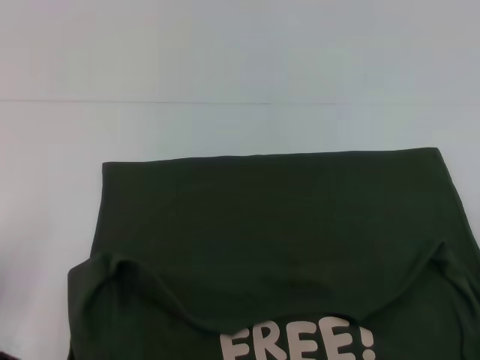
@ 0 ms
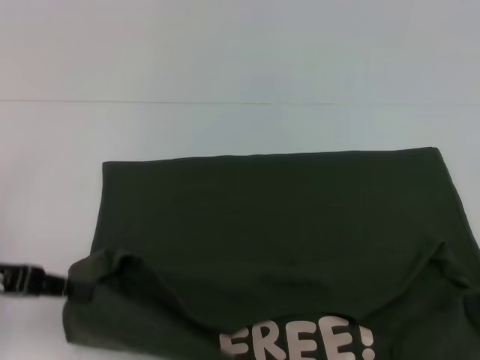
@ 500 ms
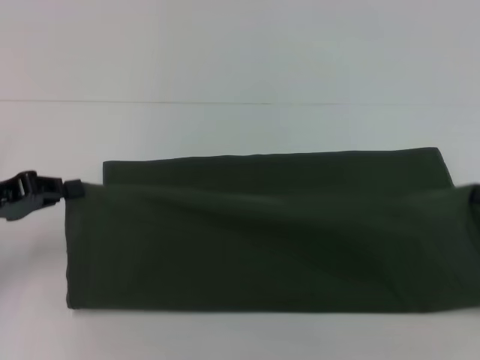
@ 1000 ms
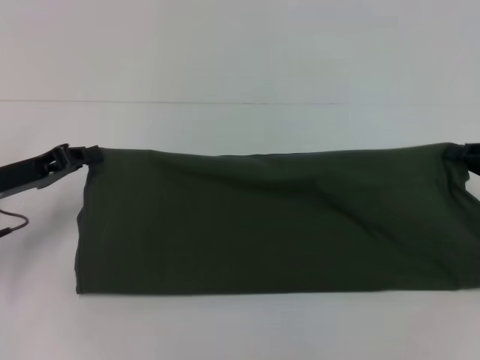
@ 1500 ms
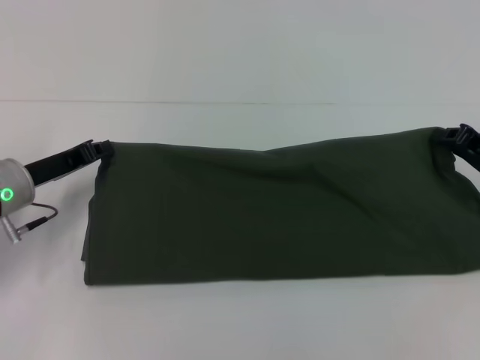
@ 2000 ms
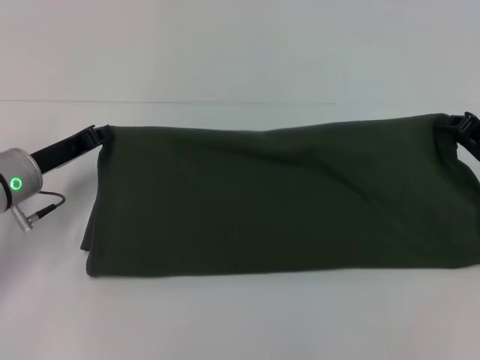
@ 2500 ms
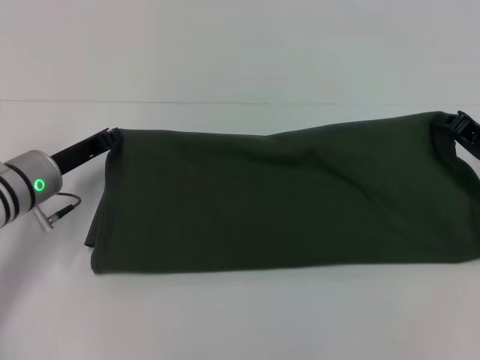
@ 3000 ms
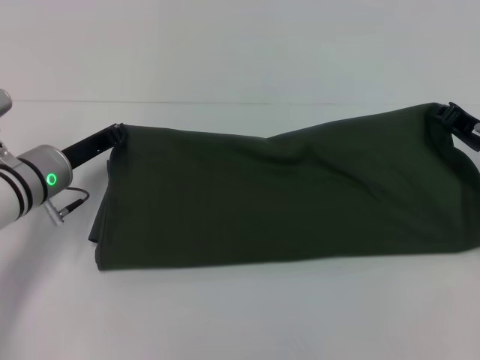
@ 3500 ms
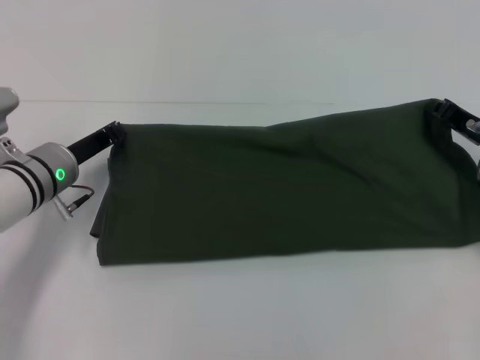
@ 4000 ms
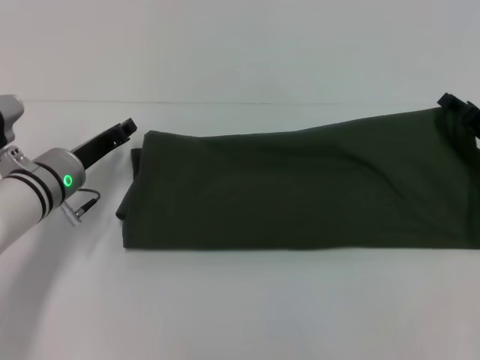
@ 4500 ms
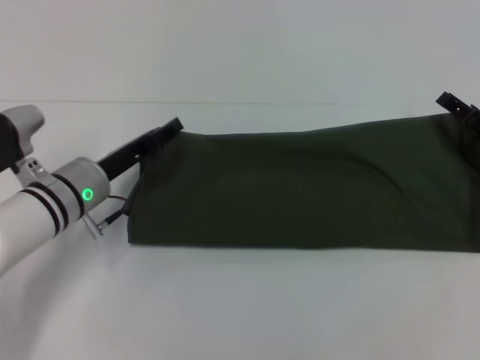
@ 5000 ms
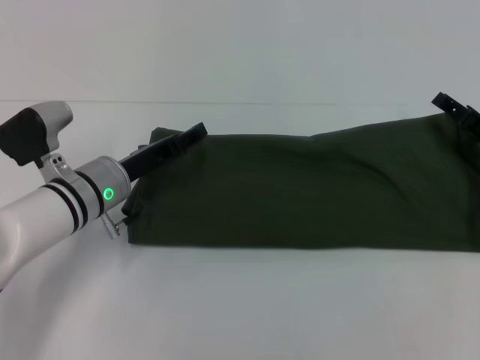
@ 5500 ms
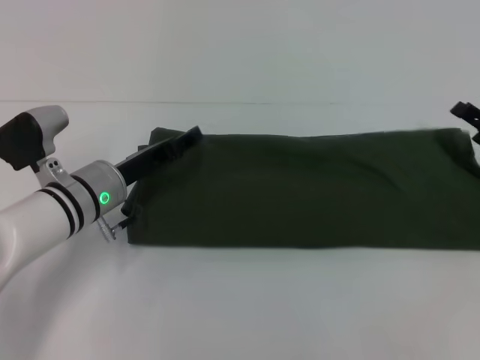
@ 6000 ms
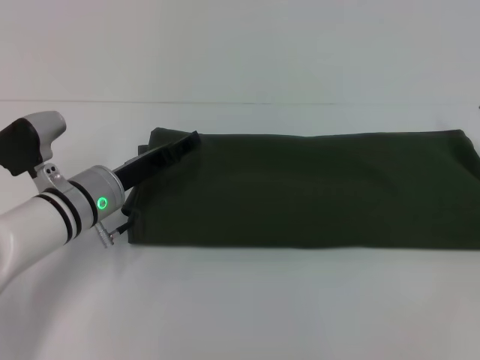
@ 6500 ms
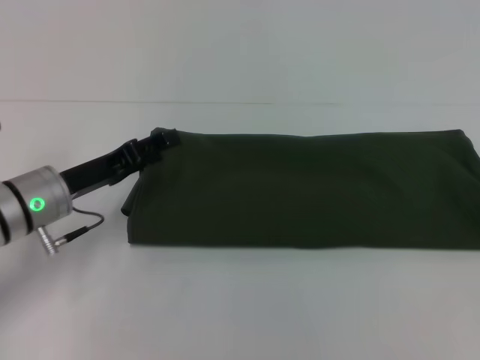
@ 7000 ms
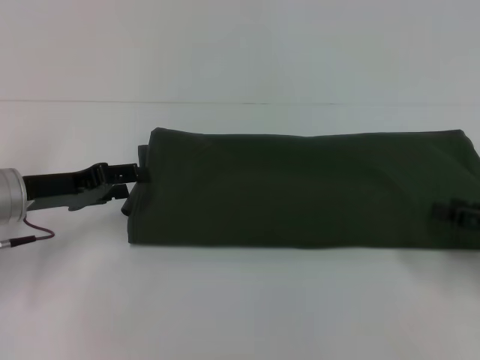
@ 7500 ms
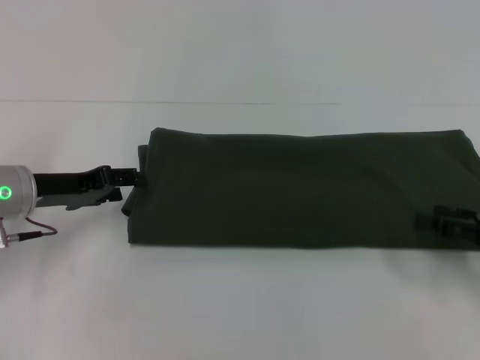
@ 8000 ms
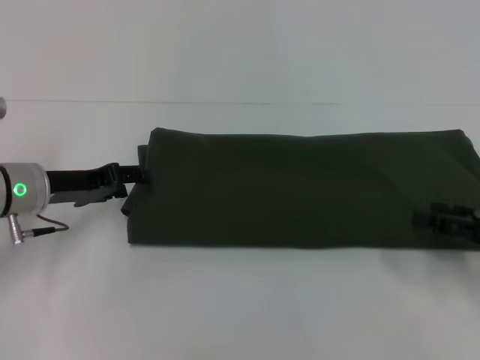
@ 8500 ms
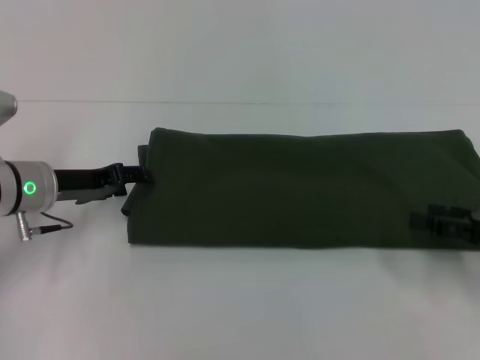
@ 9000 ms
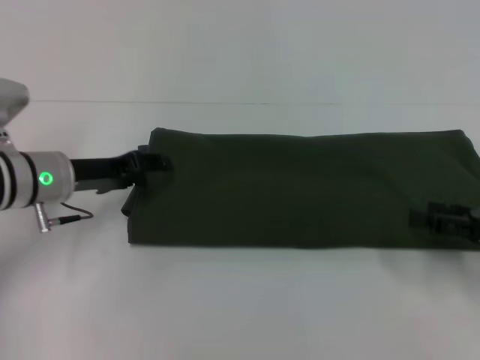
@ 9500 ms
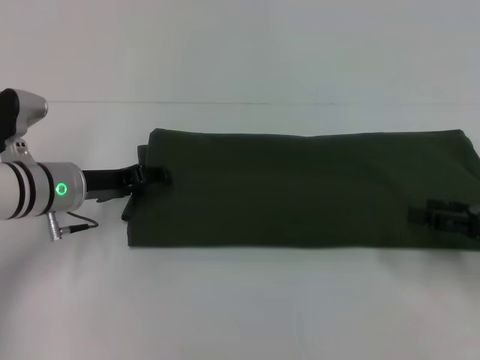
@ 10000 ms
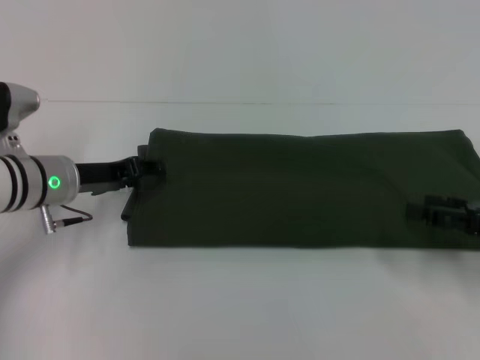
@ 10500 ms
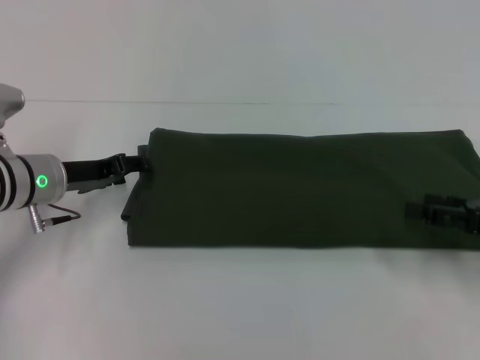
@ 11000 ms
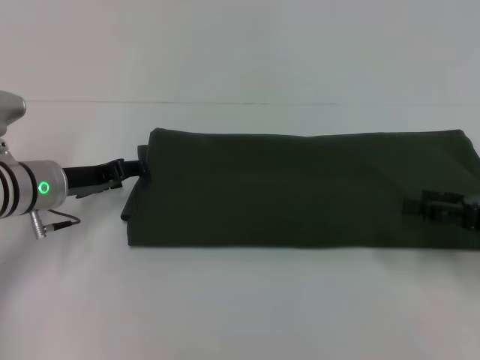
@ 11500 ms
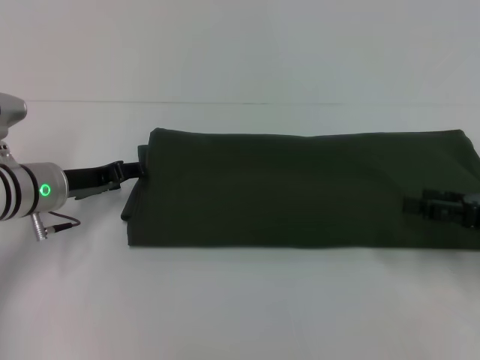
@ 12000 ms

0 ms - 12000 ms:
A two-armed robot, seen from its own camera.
Step, 500 ms - 6000 ms: Fold the clothes with your right hand.
0 ms - 2000 ms: The two grippers go some 10 cm forward.
2000 ms - 4000 ms: The left gripper moves some 5 cm.
4000 ms - 6000 ms: The left gripper ends up about 5 cm from where it was, and opens its fingers, while the right gripper ends up approximately 5 cm from where it was, and opens.
6000 ms - 8000 ms: The left gripper shifts approximately 10 cm to the left; the right gripper travels backward by approximately 10 cm.
8000 ms - 10000 ms: The left gripper shifts by approximately 5 cm.
10000 ms - 12000 ms: The grippers move only a little.

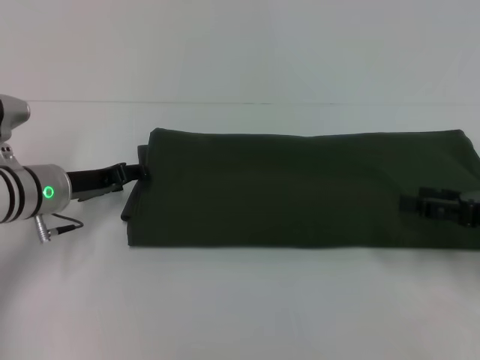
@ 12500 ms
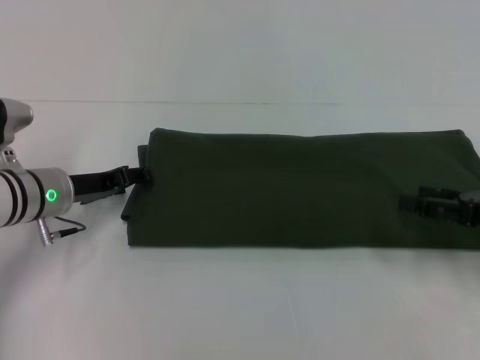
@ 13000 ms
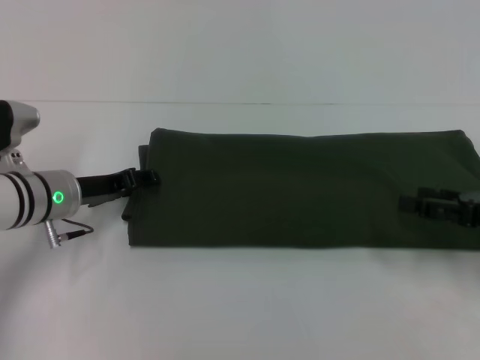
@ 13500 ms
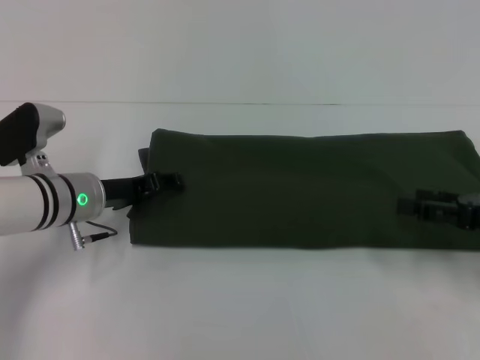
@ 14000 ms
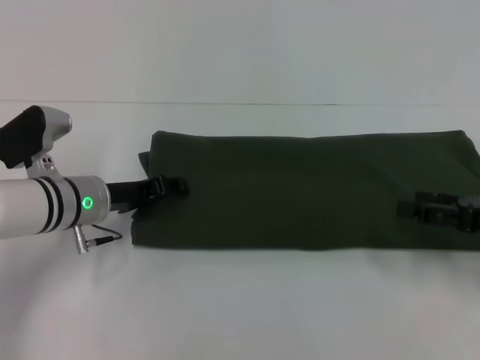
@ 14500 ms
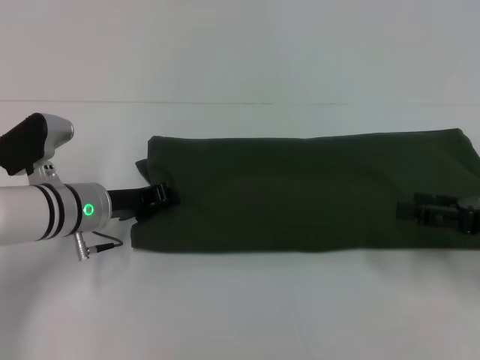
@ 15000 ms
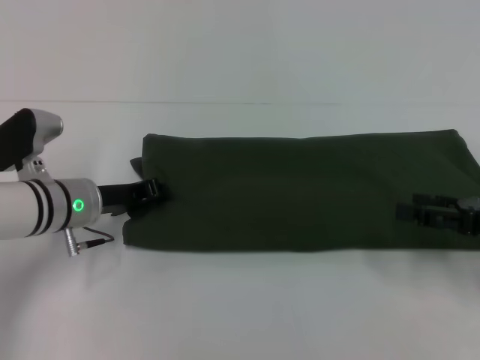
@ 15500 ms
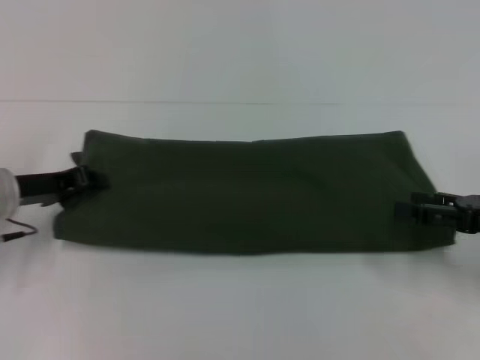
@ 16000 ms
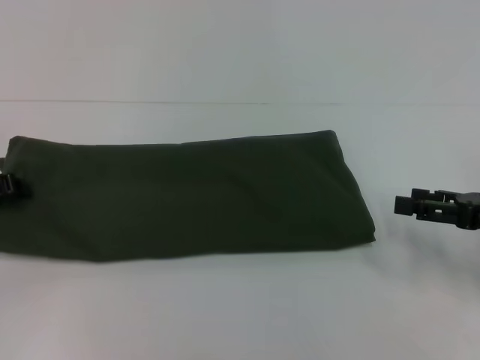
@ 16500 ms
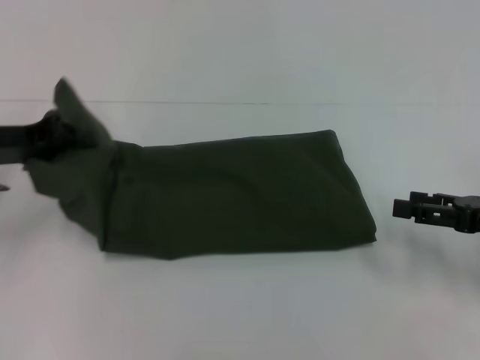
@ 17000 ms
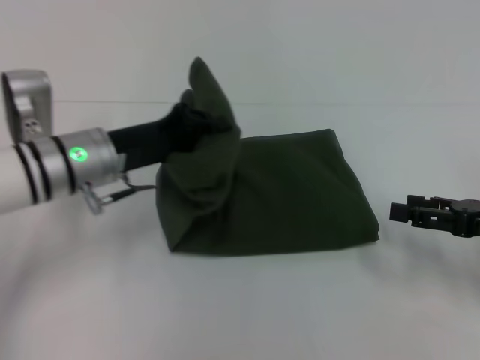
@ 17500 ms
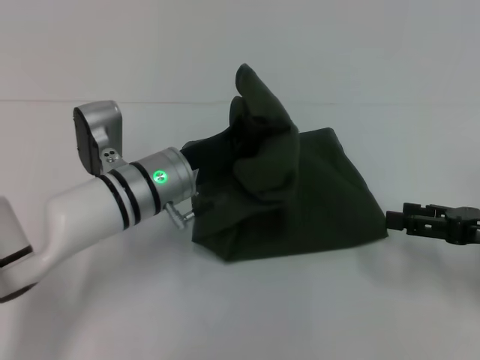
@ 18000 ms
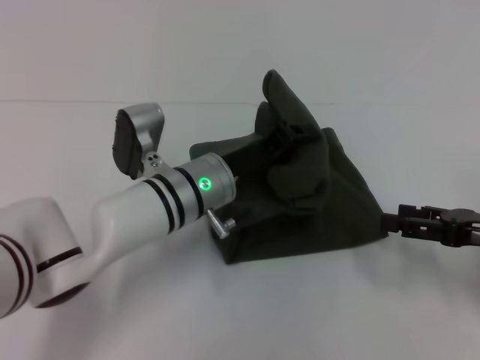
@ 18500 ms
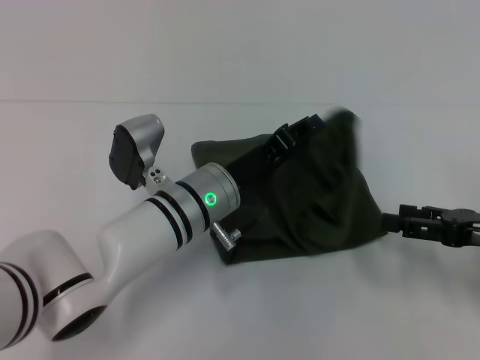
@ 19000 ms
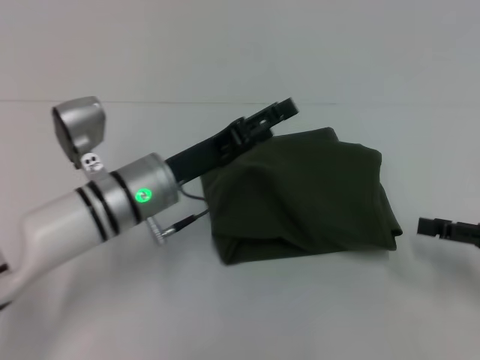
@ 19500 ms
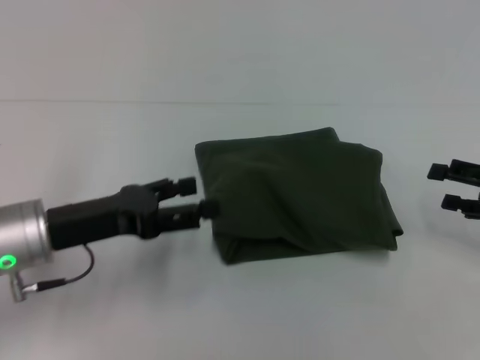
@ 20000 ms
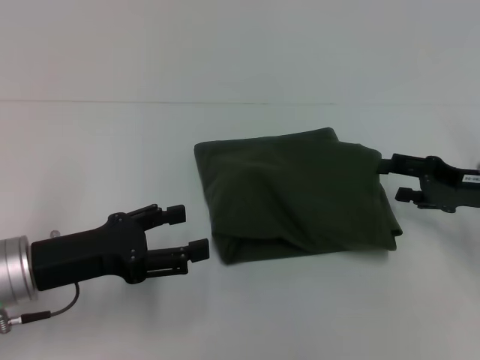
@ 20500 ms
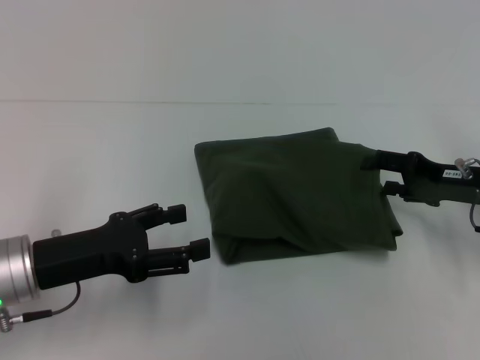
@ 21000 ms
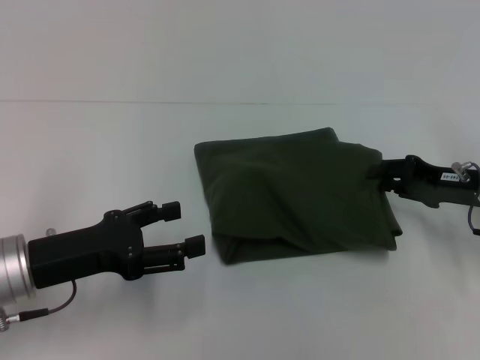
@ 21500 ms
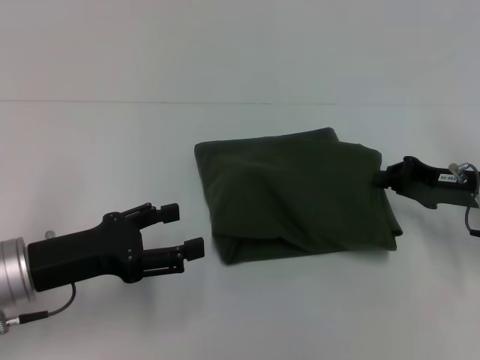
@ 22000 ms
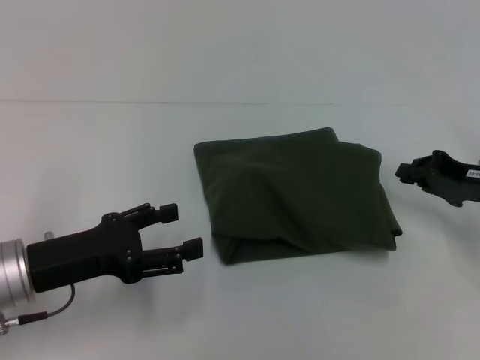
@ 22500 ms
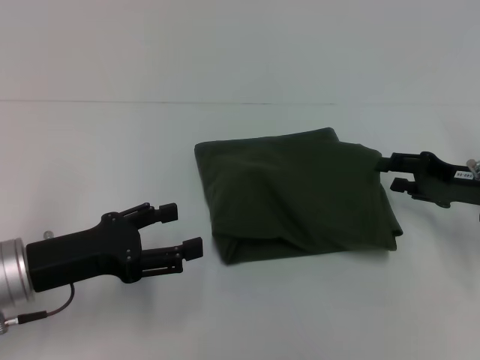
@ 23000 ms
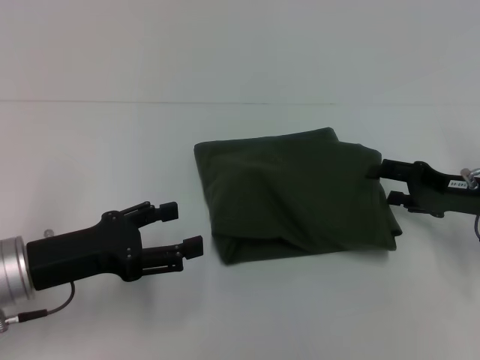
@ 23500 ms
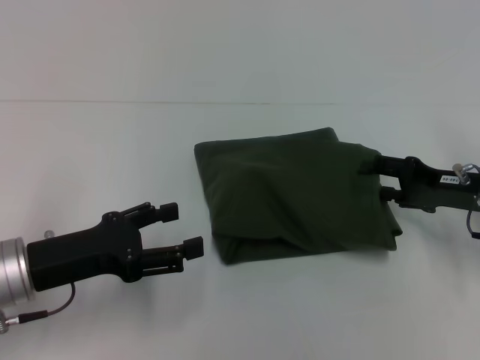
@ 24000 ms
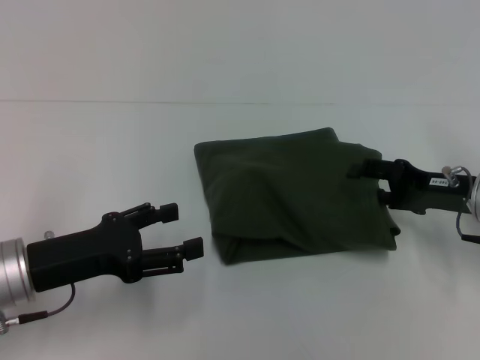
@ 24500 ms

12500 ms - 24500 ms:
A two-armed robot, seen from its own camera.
Step, 12500 ms - 19000 ms: Fold the clothes with your left hand.
12500 ms - 14500 ms: The grippers stay close to where they were, moving slightly.
14500 ms - 16500 ms: The left gripper goes some 15 cm to the left, and closes up.
16500 ms - 18500 ms: The left gripper is displaced to the right by some 30 cm.
18500 ms - 20500 ms: The left gripper heads to the left and backward, covering some 20 cm, and opens its fingers, while the right gripper is displaced forward by roughly 5 cm.
20500 ms - 22500 ms: The right gripper closes.
22500 ms - 24500 ms: The right gripper opens.

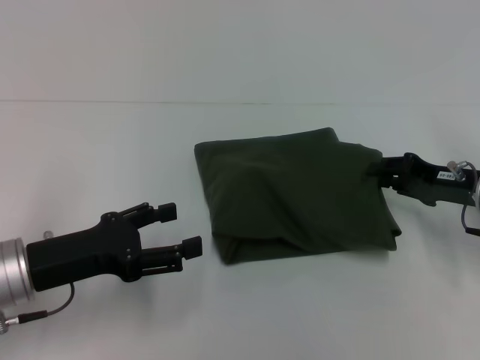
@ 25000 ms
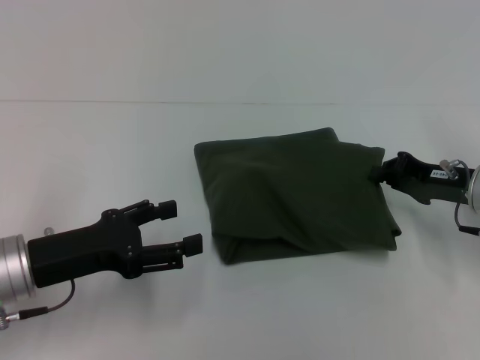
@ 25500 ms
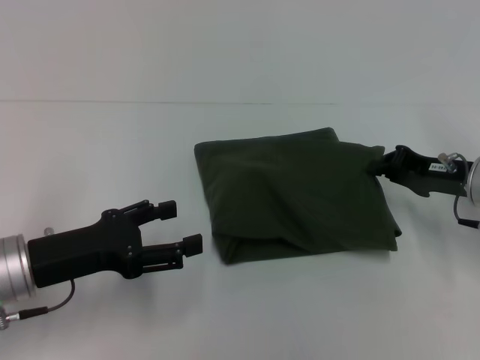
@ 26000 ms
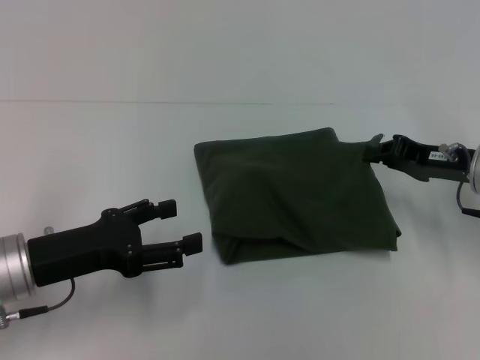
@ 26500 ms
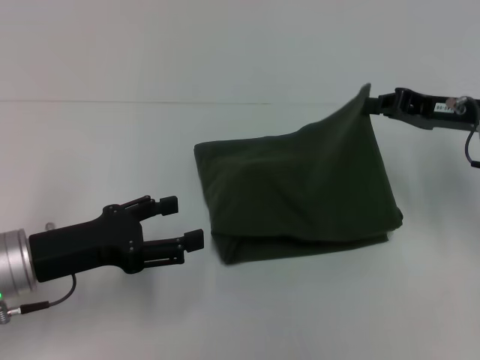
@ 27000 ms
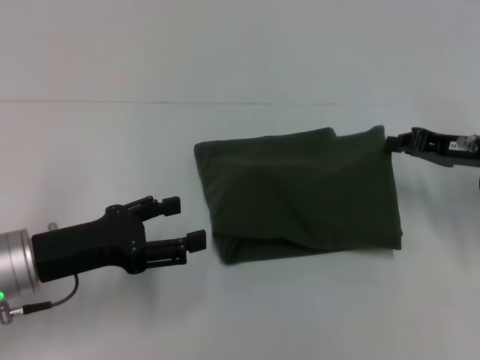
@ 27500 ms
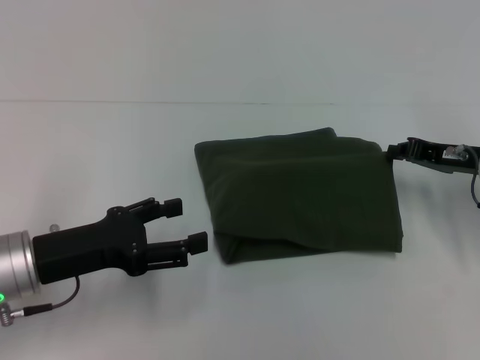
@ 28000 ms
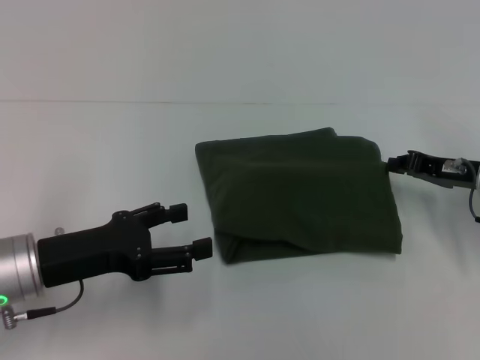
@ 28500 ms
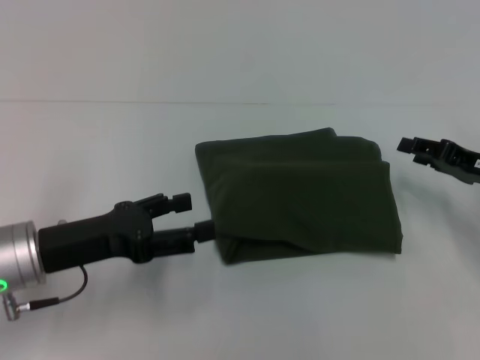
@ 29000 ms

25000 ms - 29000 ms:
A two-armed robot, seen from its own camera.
25000 ms - 27000 ms: The right gripper travels upward by approximately 5 cm, and closes its fingers.
27000 ms - 29000 ms: The right gripper is displaced downward by some 5 cm, and opens its fingers.
